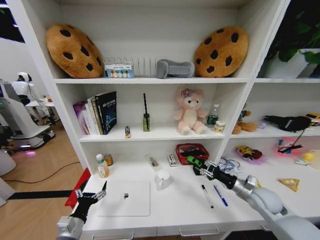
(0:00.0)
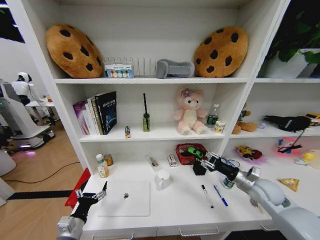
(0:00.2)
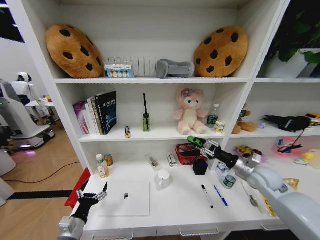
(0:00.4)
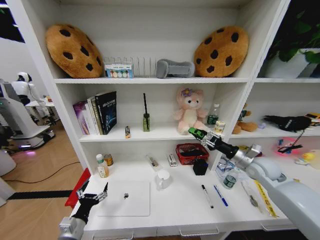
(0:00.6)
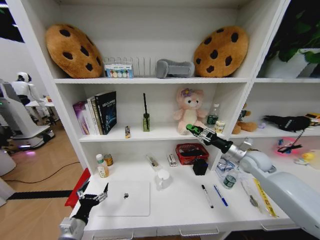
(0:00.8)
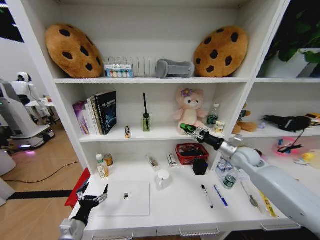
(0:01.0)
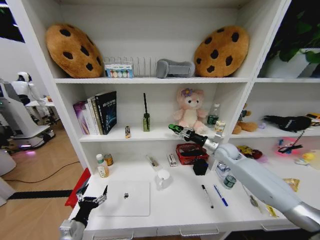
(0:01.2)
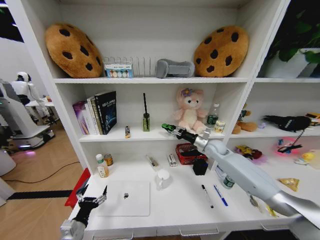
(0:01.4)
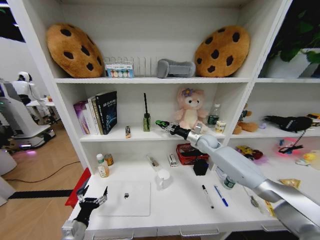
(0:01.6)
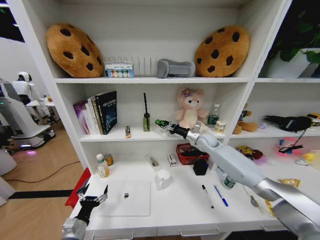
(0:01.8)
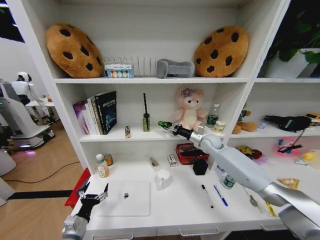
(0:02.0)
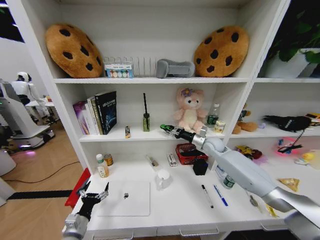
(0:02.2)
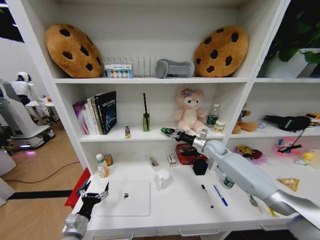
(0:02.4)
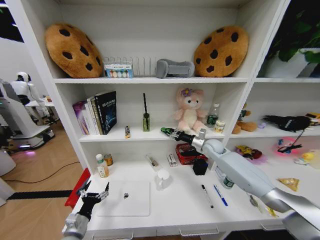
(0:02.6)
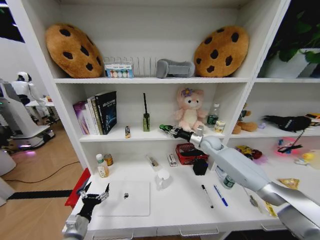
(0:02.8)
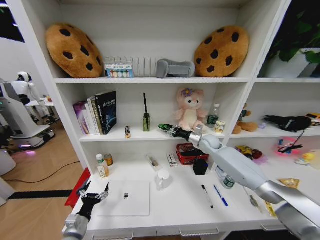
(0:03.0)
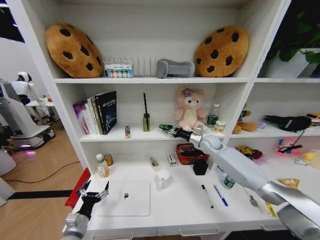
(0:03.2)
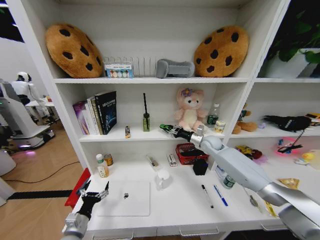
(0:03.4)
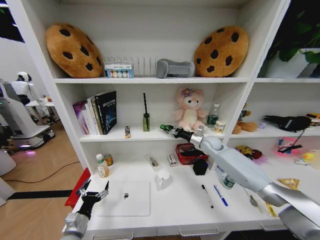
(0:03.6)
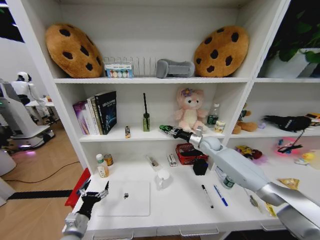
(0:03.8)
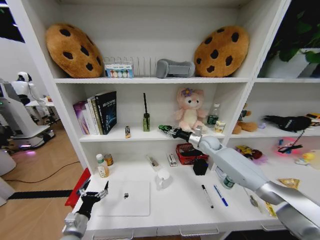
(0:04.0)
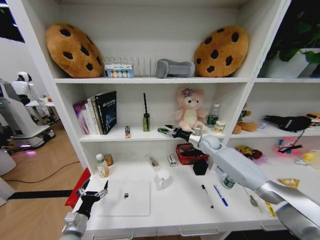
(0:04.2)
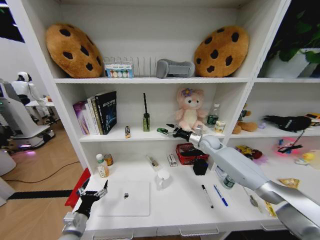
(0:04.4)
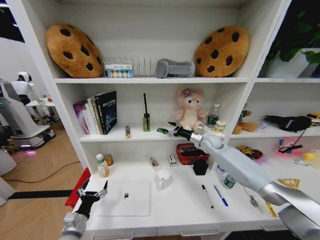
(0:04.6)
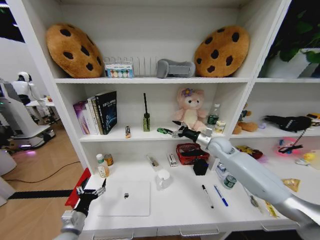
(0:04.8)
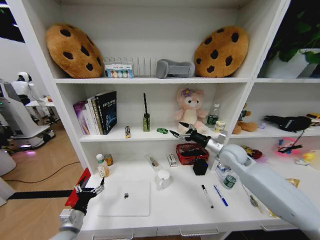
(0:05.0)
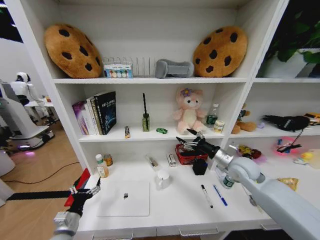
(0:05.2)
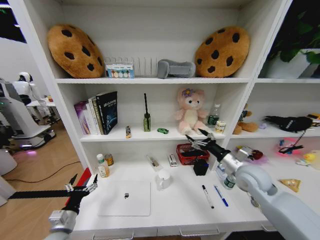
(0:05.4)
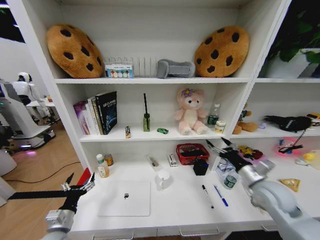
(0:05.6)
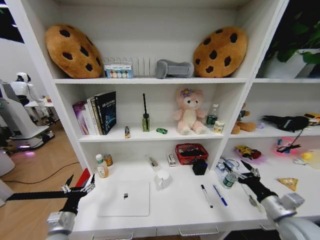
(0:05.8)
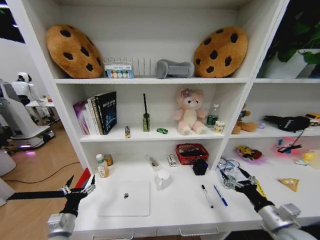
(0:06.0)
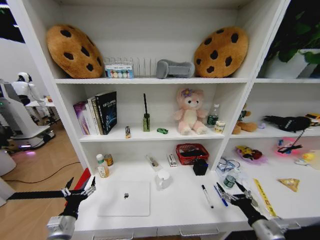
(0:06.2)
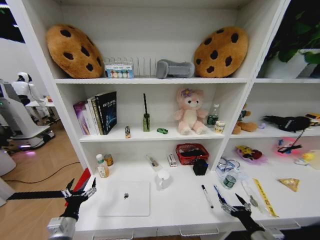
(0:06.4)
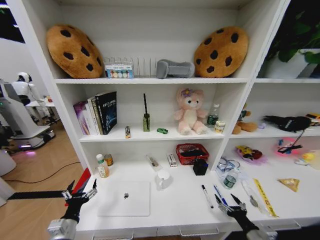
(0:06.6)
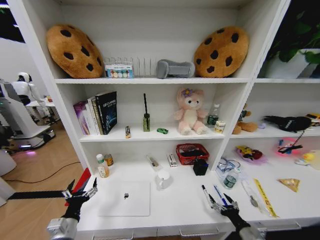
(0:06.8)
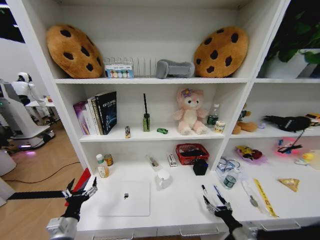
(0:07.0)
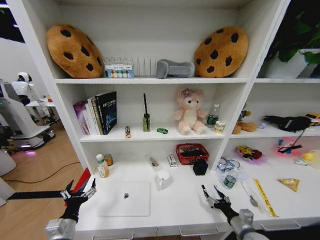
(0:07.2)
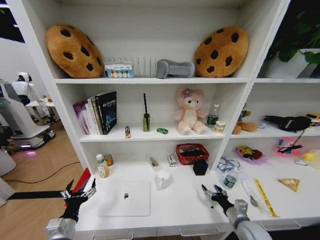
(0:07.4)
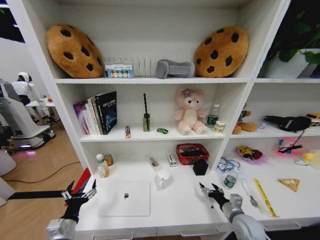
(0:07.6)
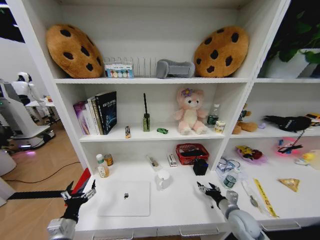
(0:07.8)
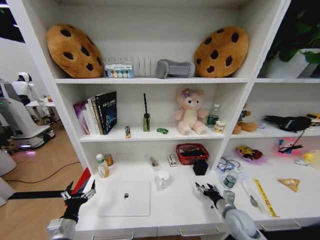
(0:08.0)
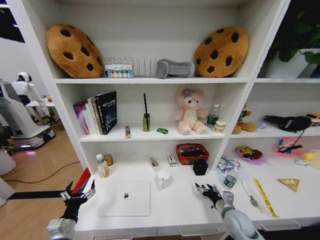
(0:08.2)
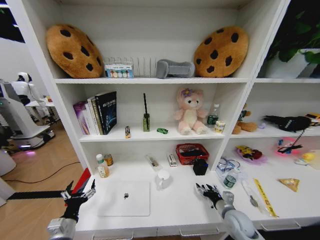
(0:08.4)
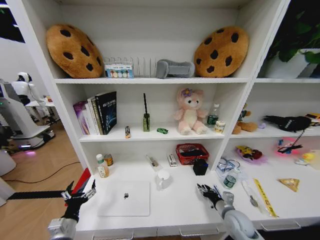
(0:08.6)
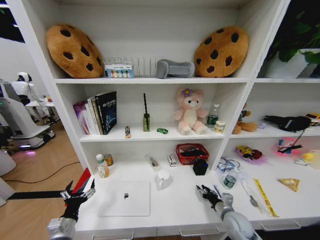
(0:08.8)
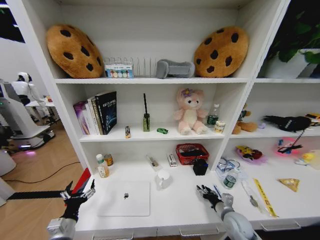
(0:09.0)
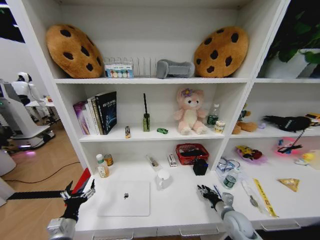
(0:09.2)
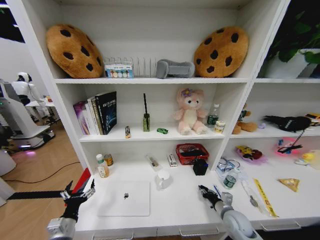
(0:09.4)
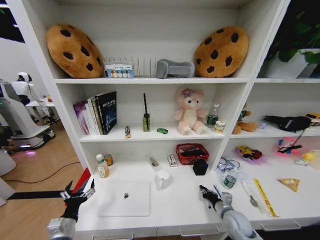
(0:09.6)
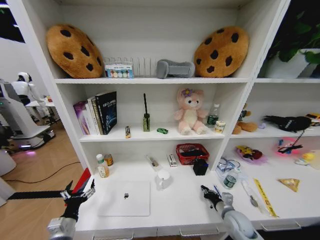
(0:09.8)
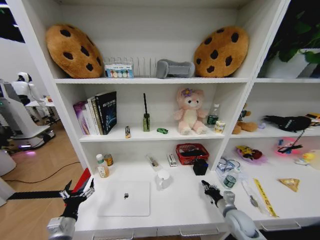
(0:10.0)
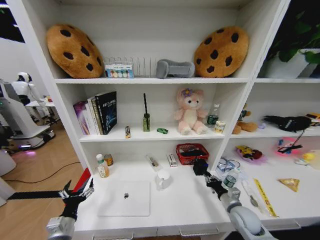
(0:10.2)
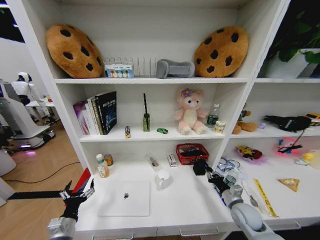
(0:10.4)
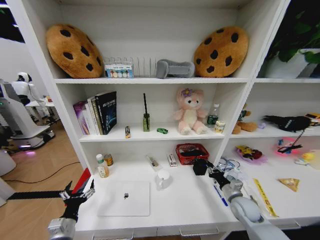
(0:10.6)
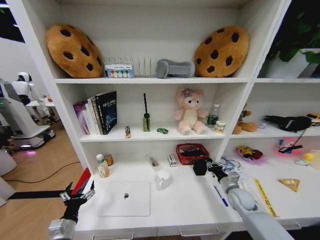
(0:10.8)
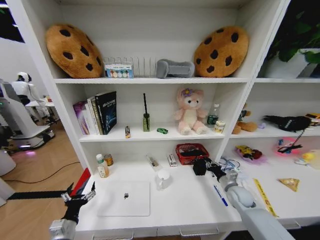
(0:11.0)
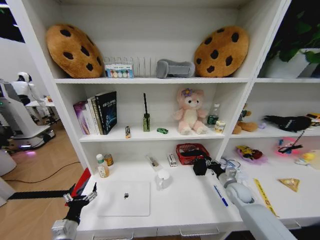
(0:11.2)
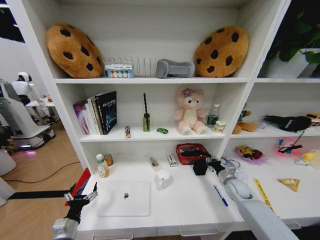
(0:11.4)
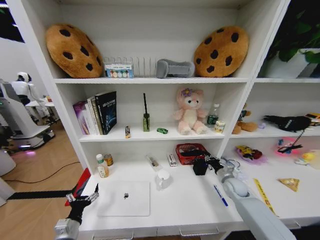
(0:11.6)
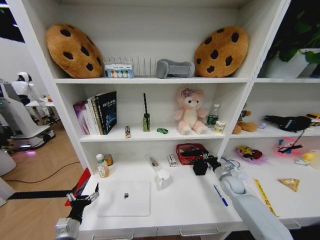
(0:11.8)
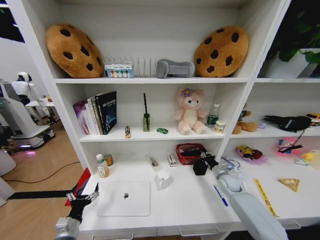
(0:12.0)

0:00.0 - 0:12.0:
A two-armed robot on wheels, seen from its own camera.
Task of the whole recording: Organize the objects on the table.
0:00.0 - 0:01.6: The right gripper is displaced forward, to the left and upward by approximately 30 cm.
0:01.6 - 0:03.0: The grippers move only a little.
0:04.4 - 0:06.0: The right gripper heads backward, covering approximately 40 cm.
0:06.0 - 0:07.6: The right gripper travels downward, forward and to the left by roughly 15 cm.
0:07.6 - 0:09.0: The grippers move only a little.
0:09.0 - 0:10.4: The right gripper ends up roughly 5 cm from where it was, and closes its fingers.
0:10.4 - 0:12.0: The right gripper shifts some 15 cm forward.

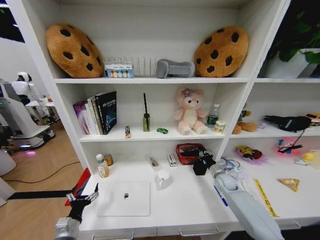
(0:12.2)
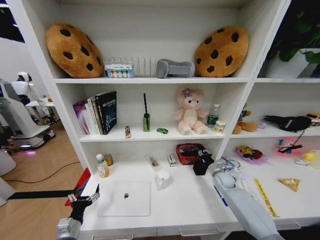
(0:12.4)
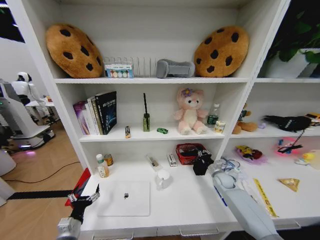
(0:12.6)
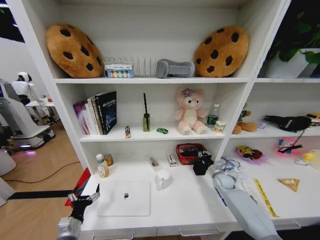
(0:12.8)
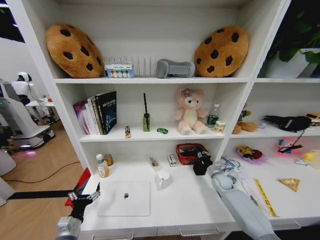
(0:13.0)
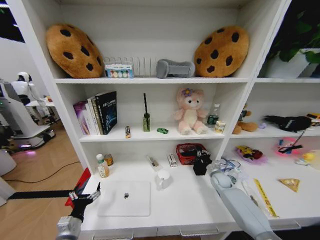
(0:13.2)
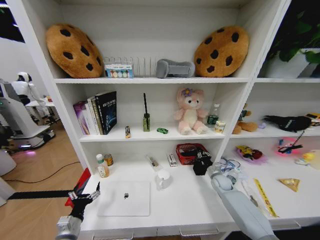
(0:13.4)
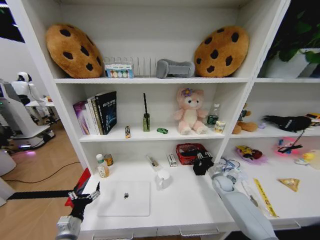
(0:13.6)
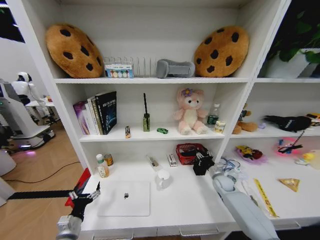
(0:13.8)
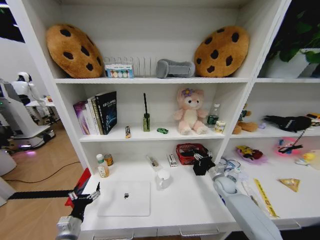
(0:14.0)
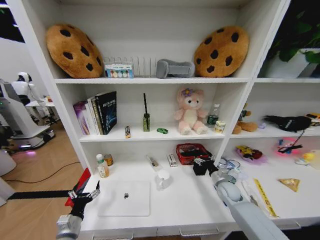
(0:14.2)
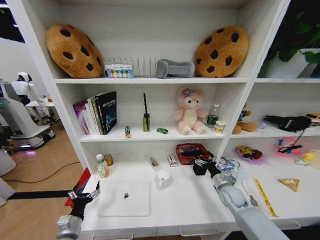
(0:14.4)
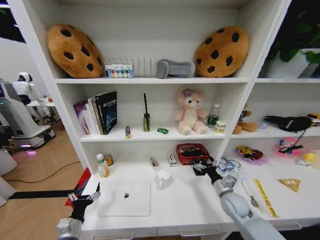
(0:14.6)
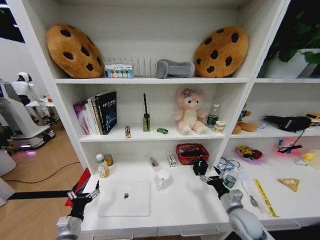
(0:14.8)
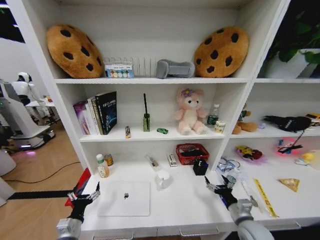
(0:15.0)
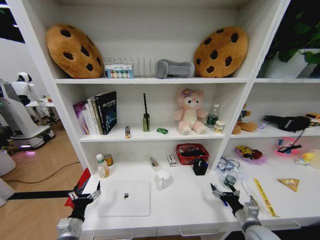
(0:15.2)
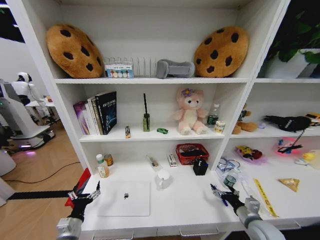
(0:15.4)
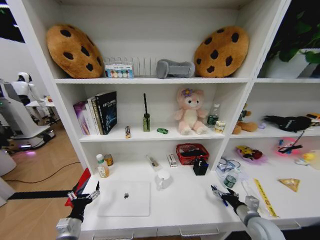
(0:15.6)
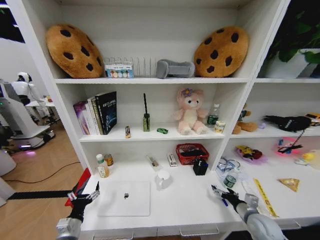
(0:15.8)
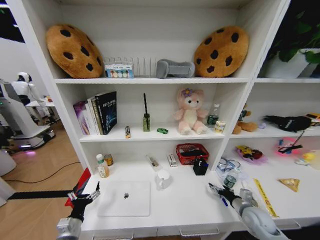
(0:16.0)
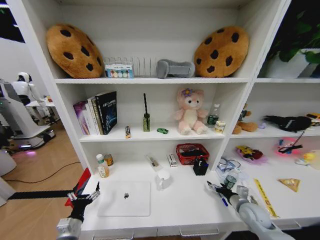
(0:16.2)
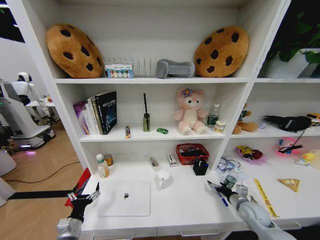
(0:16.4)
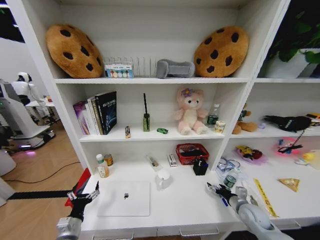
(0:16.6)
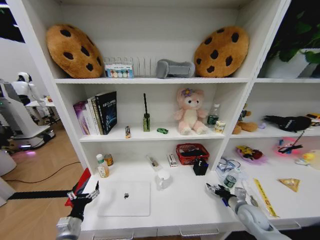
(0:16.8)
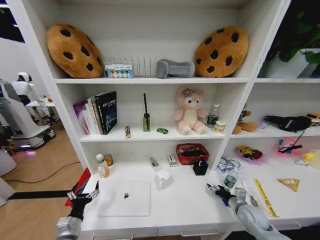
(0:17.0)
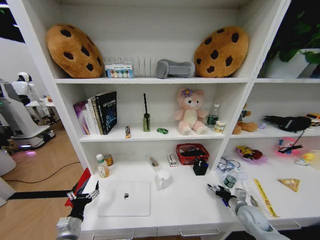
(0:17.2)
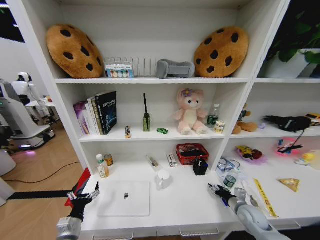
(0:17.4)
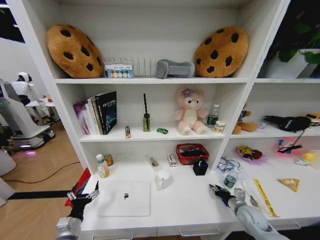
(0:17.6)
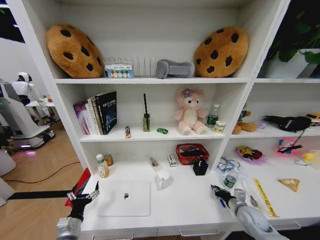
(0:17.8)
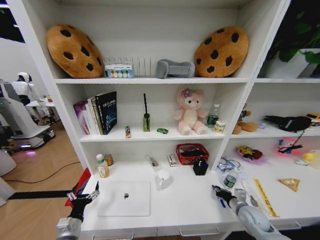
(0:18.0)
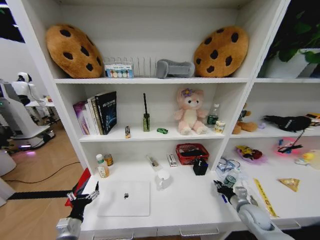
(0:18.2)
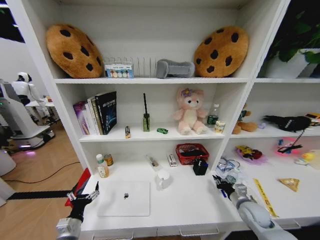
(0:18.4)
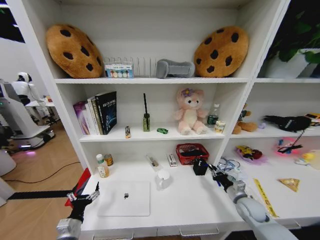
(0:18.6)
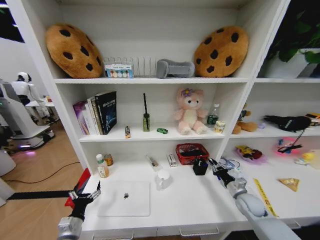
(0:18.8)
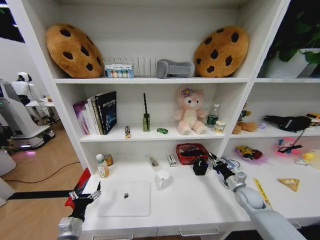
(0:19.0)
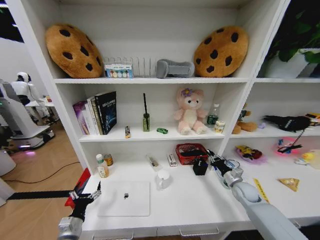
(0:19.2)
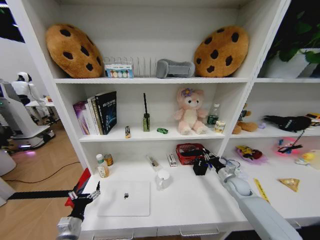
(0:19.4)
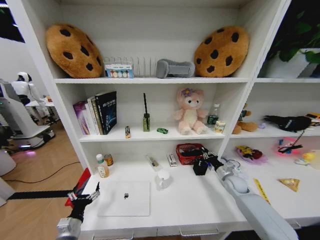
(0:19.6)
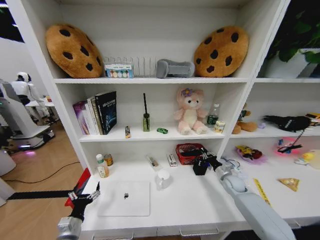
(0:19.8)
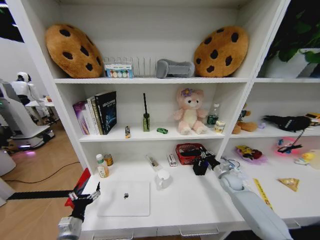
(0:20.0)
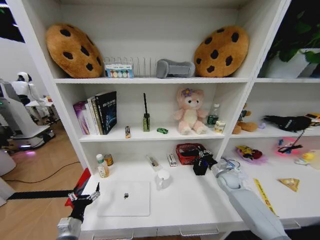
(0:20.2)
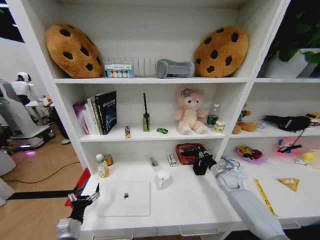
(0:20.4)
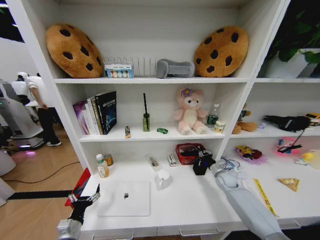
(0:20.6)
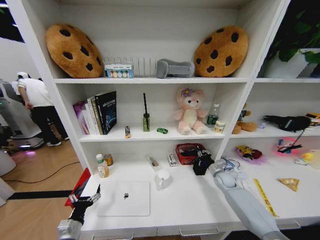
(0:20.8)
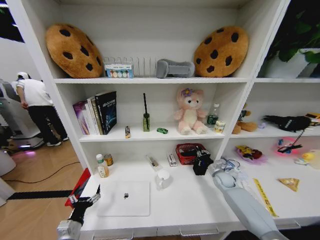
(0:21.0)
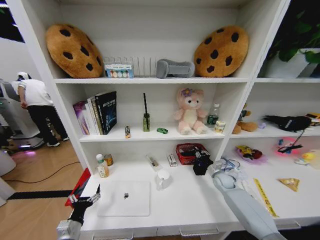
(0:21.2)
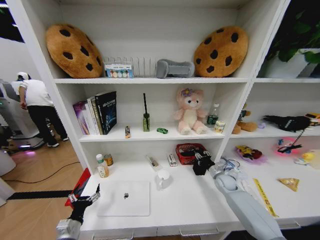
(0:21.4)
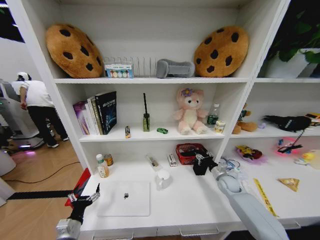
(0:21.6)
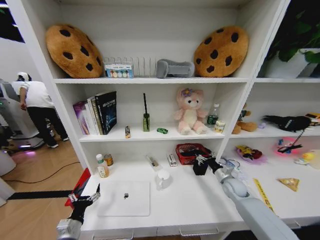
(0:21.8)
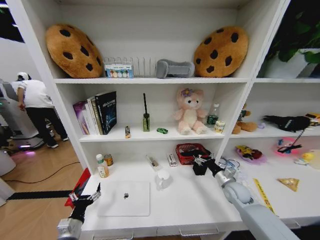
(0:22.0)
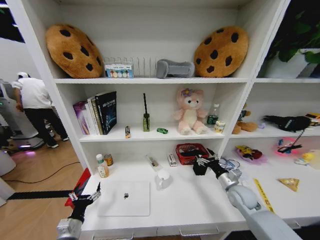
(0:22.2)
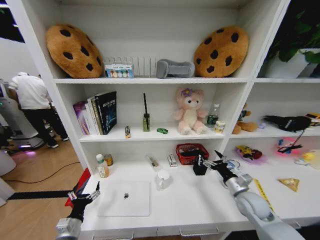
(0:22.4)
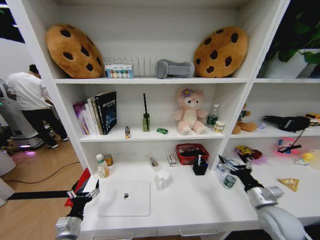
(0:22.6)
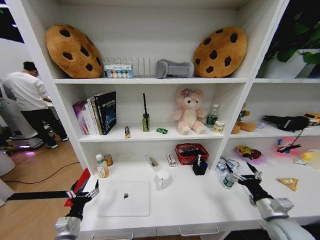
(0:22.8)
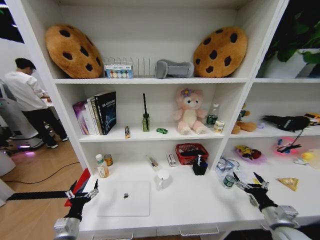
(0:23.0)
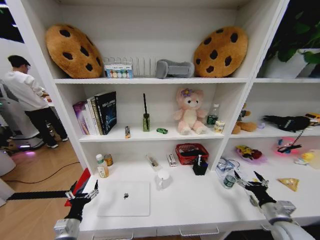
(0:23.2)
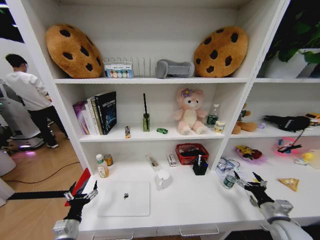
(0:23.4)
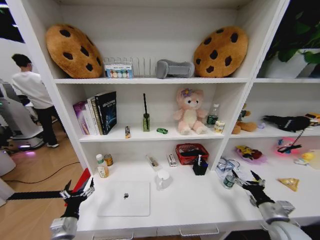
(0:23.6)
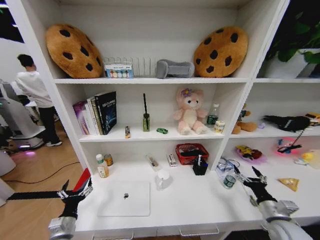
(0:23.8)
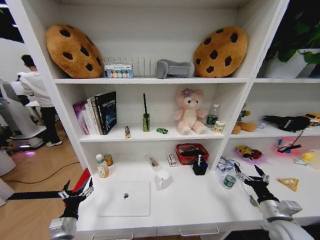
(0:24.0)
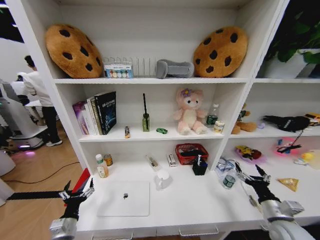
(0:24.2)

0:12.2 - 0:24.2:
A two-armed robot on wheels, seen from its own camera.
Task of the whole recording: Organize the objects on the table.
0:12.2 - 0:13.8: The right gripper opens up.
0:13.8 - 0:15.2: The right gripper is displaced backward by approximately 25 cm, and opens its fingers.
0:15.2 - 0:16.6: The right gripper is displaced forward by roughly 10 cm.
0:16.6 - 0:18.2: The right gripper closes its fingers.
0:18.2 - 0:19.8: The right gripper heads forward, covering approximately 15 cm.
0:19.8 - 0:21.2: There are only small adjustments of the grippers.
0:21.2 - 0:22.6: The right gripper travels backward and upward by approximately 25 cm, and opens up.
